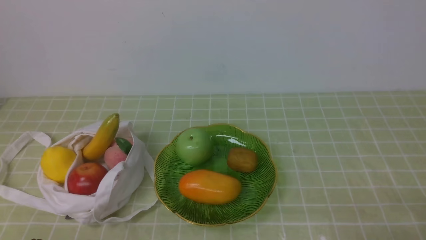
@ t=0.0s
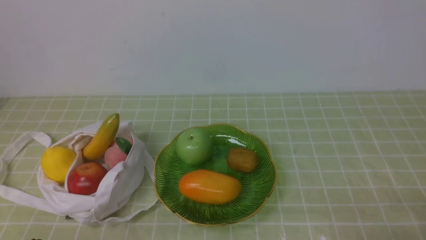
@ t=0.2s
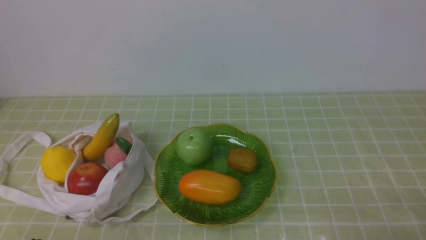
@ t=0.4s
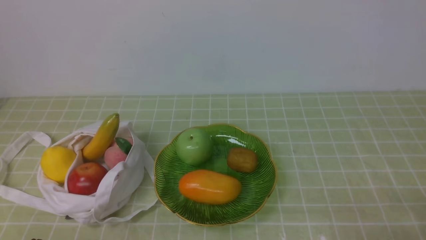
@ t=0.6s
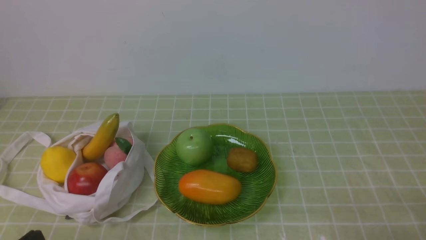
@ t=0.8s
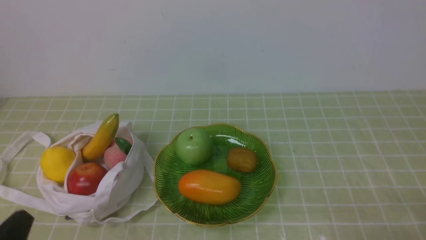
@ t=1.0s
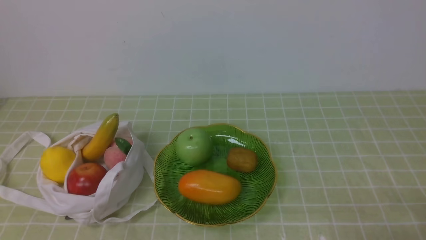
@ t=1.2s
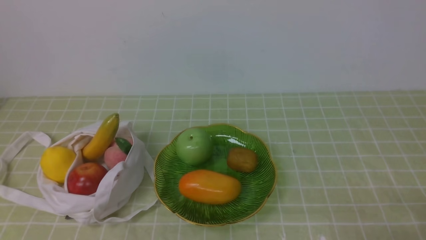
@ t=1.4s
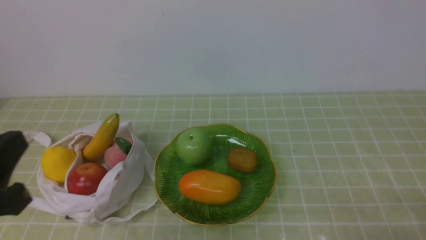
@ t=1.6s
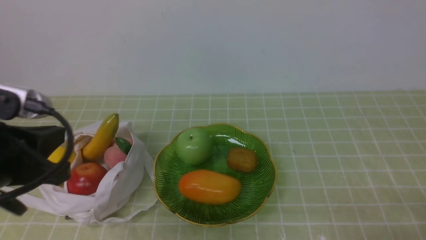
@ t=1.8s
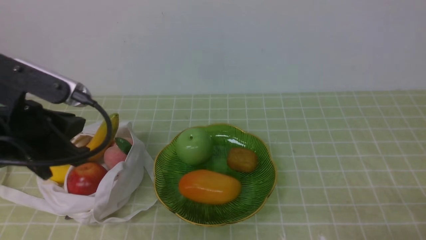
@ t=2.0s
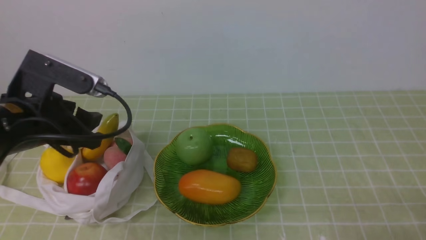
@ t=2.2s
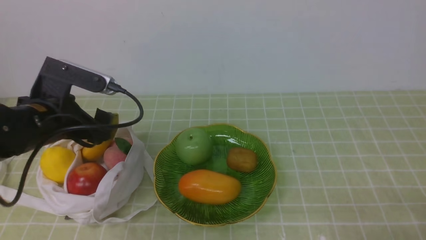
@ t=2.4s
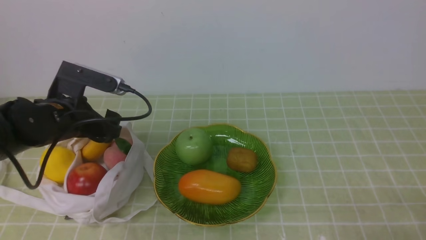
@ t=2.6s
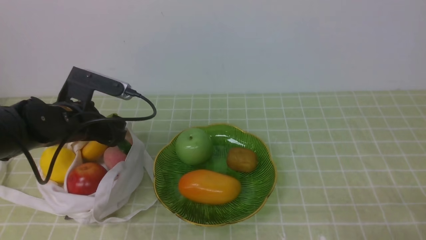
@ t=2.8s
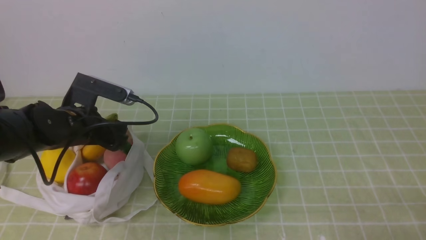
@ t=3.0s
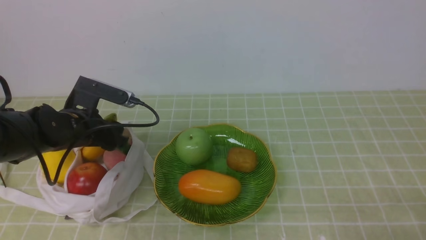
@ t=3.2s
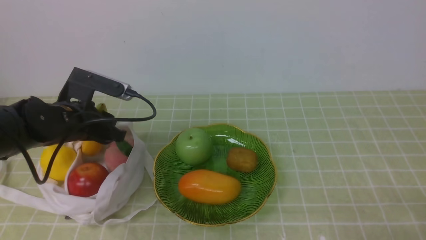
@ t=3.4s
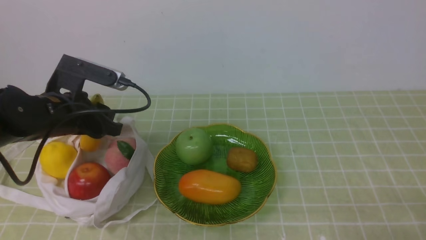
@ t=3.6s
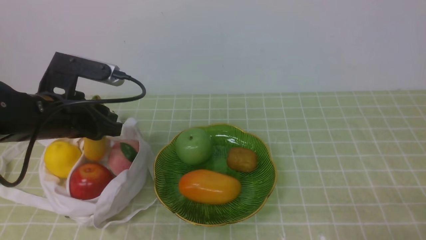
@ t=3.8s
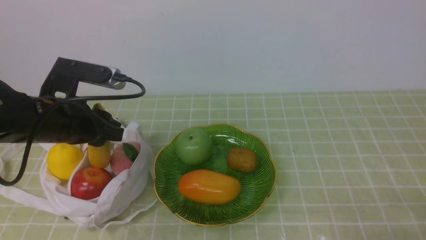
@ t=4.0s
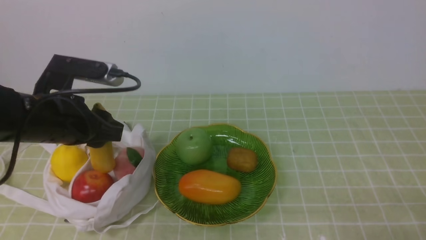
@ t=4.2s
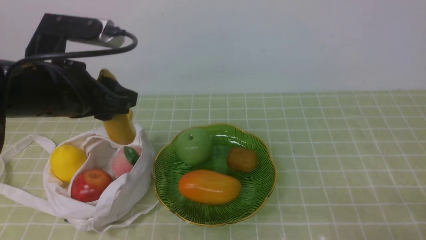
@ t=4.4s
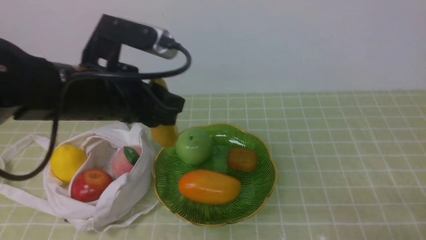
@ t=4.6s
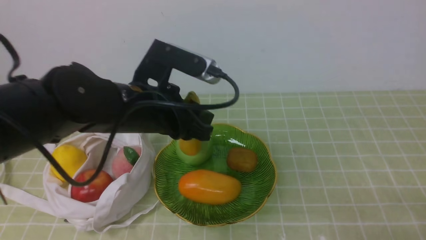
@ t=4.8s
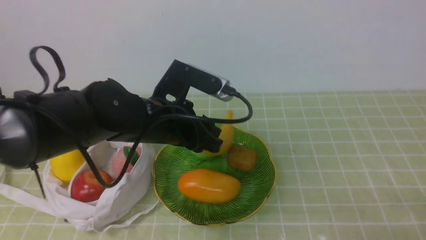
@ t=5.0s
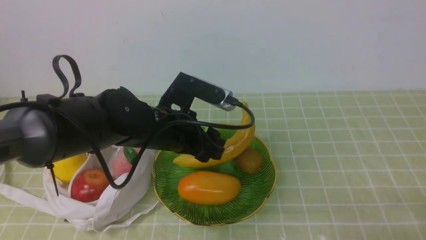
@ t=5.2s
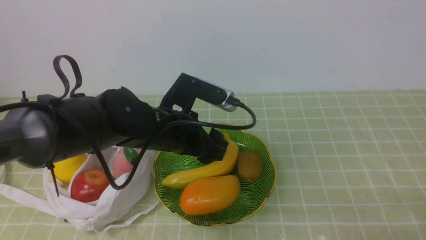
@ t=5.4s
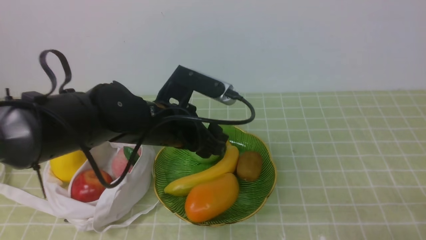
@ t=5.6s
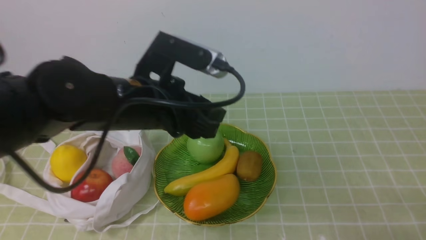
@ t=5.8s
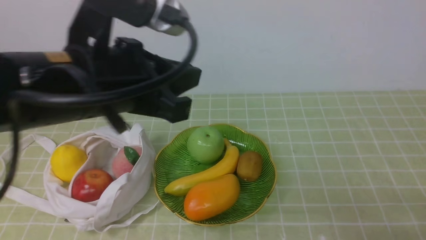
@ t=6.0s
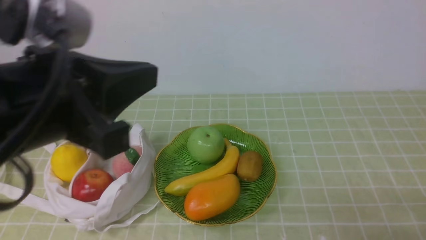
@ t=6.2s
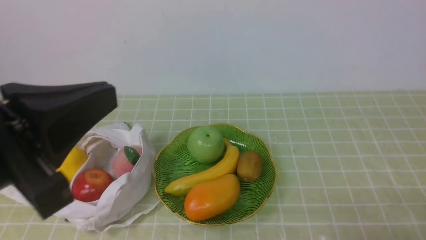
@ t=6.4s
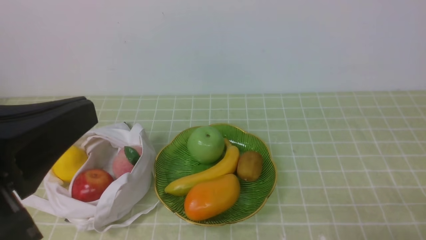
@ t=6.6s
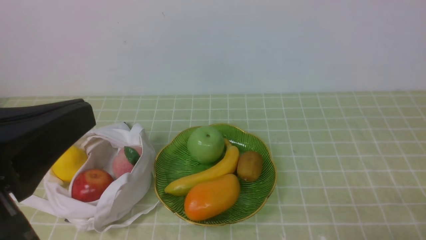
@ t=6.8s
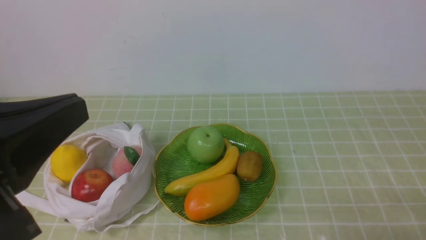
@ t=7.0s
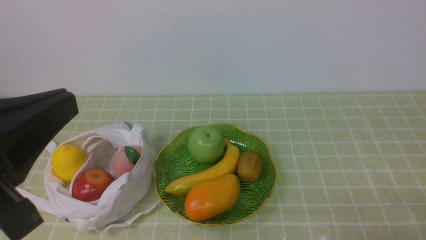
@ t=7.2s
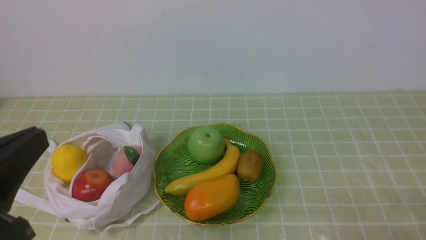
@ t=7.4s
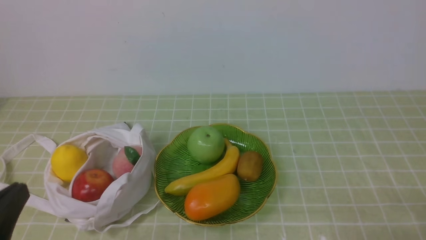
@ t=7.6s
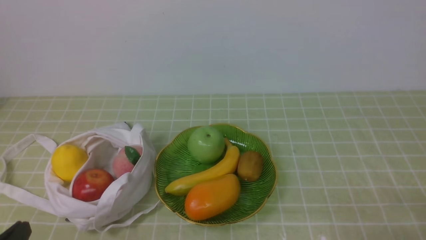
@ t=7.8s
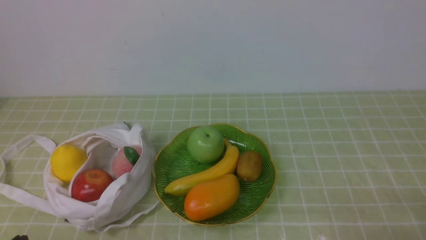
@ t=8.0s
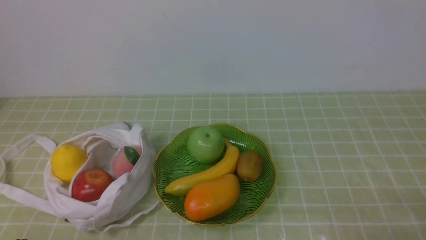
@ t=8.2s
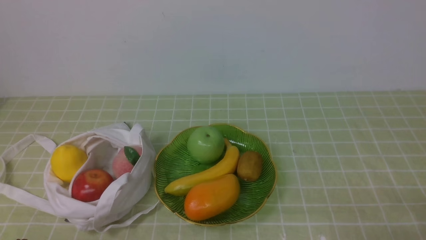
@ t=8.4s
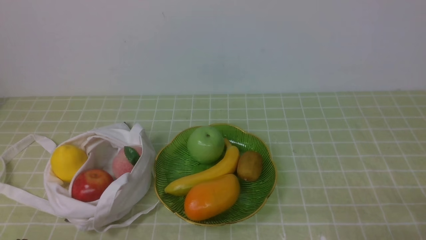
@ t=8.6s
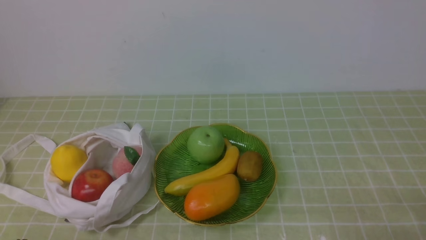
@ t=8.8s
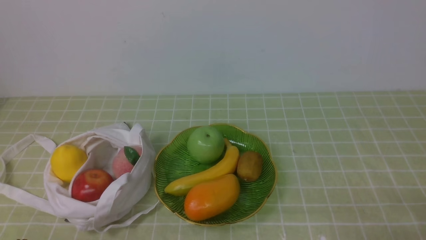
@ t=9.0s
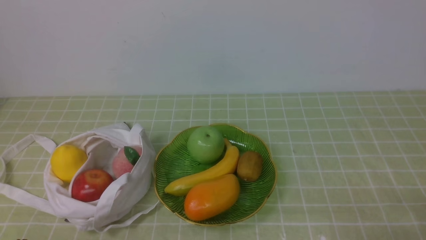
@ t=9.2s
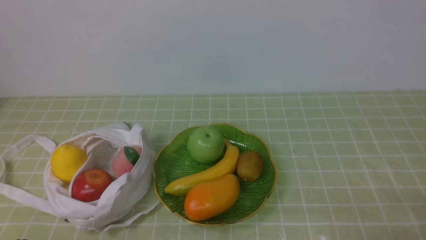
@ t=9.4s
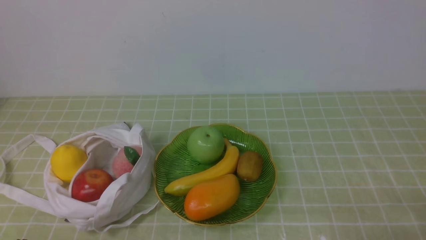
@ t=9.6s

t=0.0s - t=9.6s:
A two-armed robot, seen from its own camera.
Step, t=0.0s - t=3.2s: use the left arm to grab a banana from the bag.
Step, t=3.6s - t=5.2s: use the left arm to put the banana into the empty plate on the right.
t=1.6s - t=3.2s: The left gripper moves forward and downward, about 30 cm, and opens up.
t=3.2s - t=4.8s: The left gripper shifts approximately 15 cm to the right, upward and backward.
t=4.8s - t=6.4s: The left gripper goes some 20 cm backward and upward, and closes.
t=6.4s - t=8.0s: The left gripper shifts roughly 20 cm downward and to the left.
